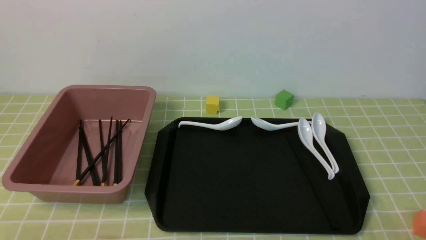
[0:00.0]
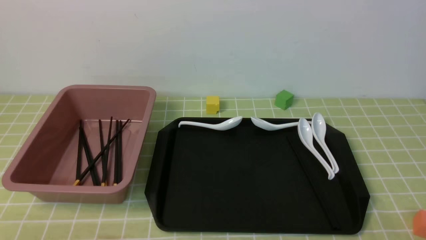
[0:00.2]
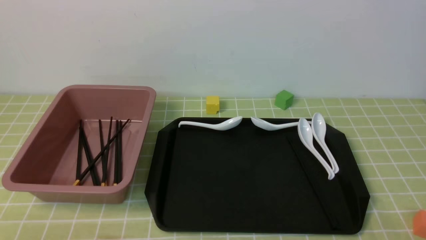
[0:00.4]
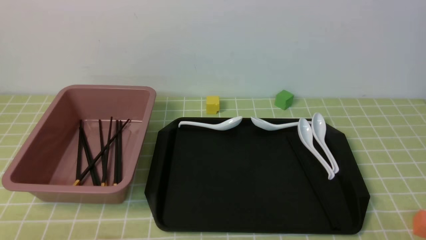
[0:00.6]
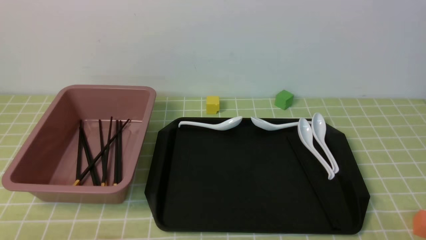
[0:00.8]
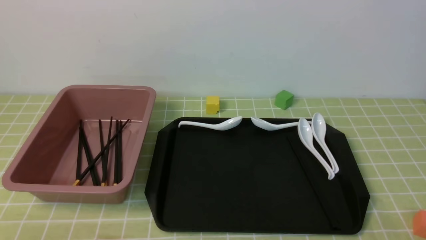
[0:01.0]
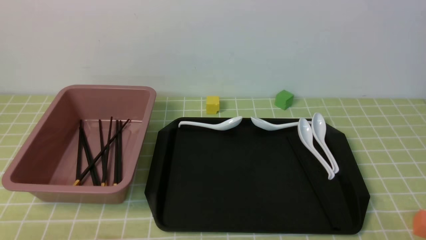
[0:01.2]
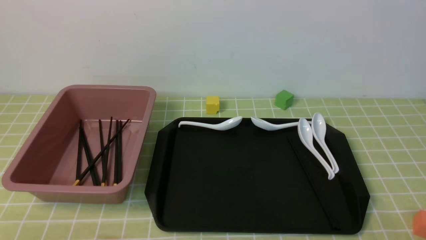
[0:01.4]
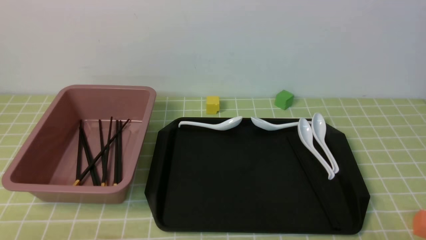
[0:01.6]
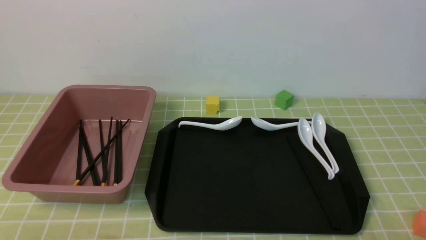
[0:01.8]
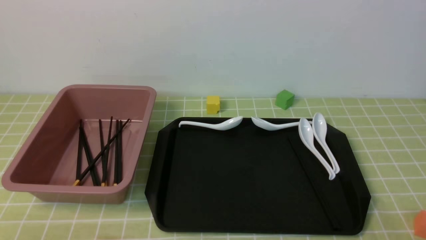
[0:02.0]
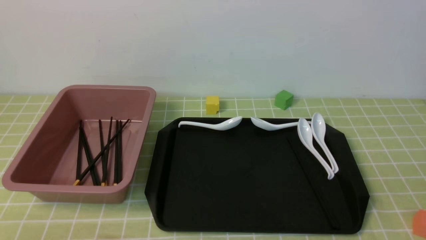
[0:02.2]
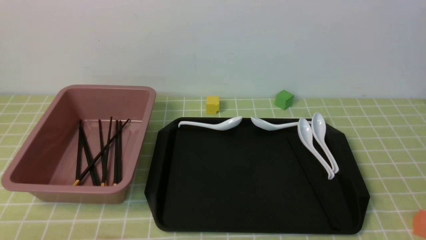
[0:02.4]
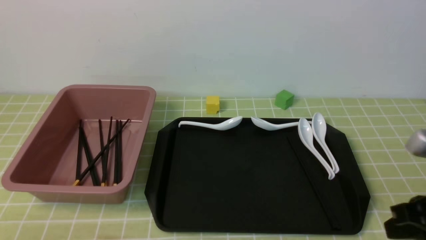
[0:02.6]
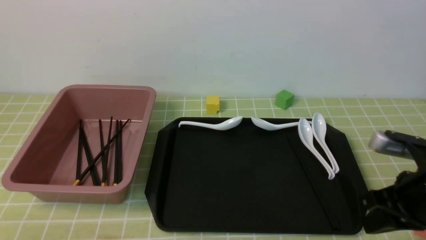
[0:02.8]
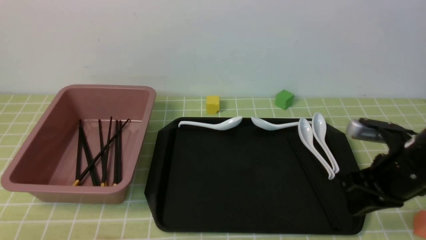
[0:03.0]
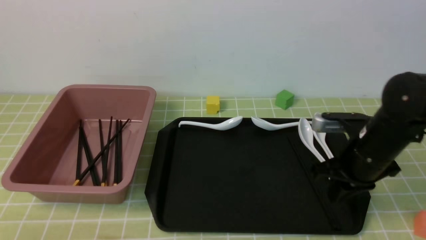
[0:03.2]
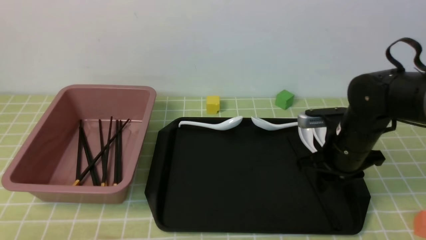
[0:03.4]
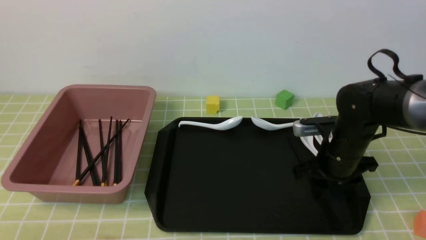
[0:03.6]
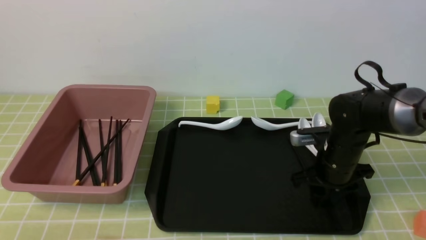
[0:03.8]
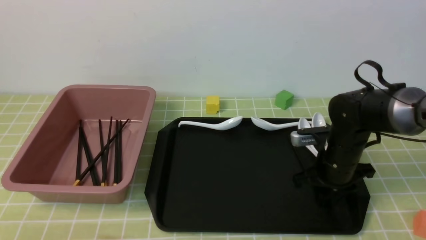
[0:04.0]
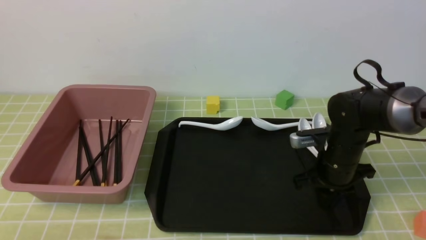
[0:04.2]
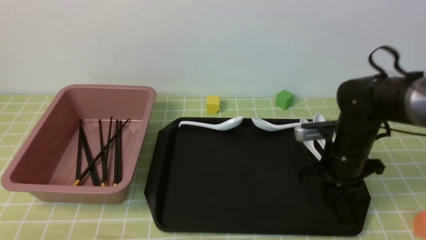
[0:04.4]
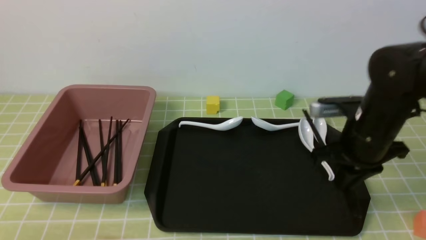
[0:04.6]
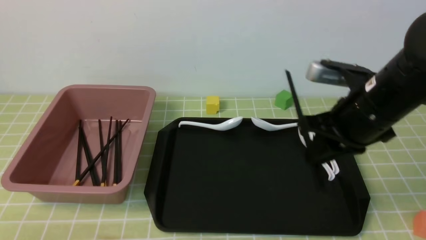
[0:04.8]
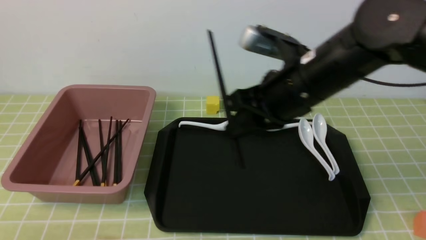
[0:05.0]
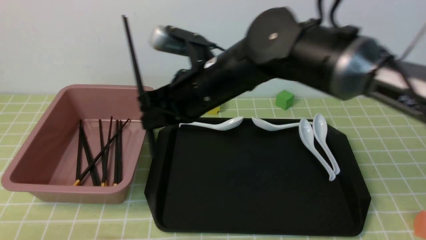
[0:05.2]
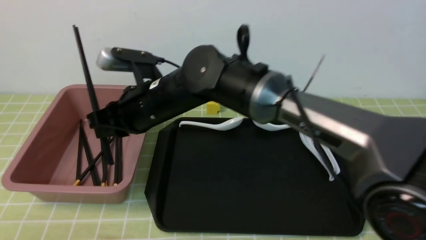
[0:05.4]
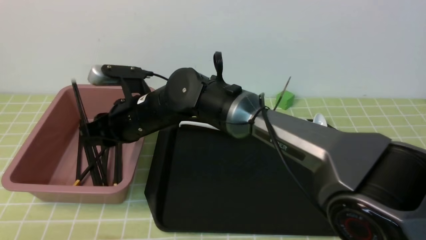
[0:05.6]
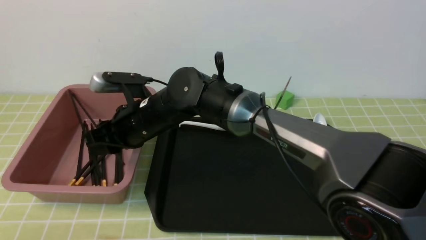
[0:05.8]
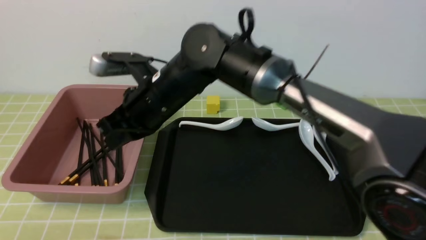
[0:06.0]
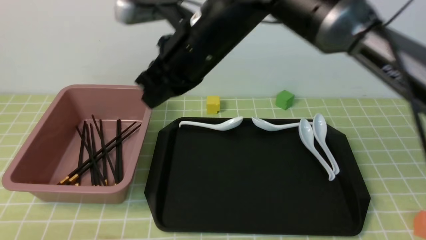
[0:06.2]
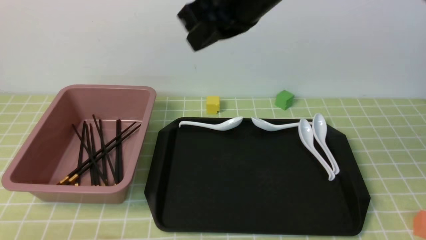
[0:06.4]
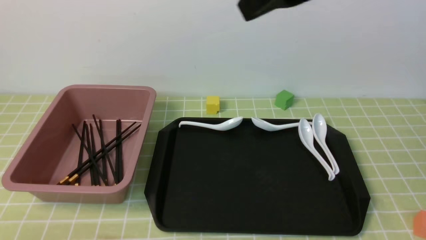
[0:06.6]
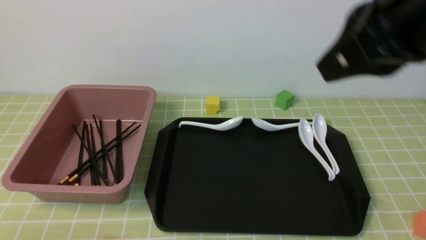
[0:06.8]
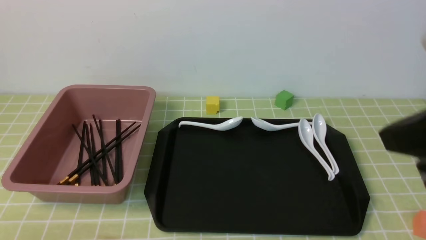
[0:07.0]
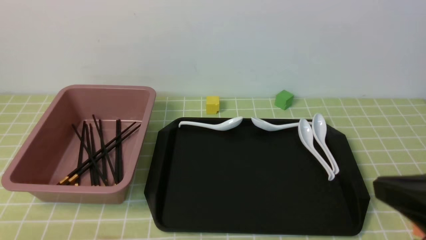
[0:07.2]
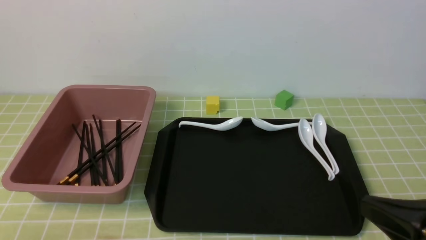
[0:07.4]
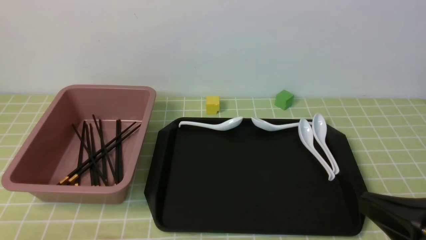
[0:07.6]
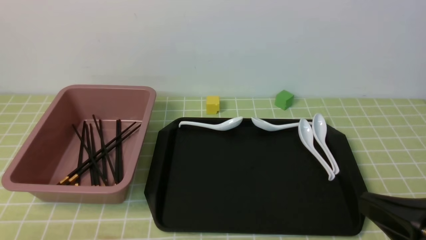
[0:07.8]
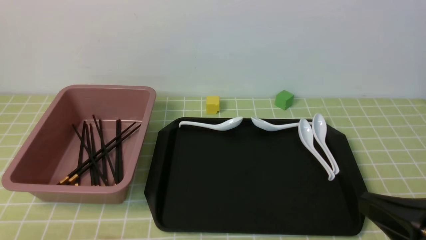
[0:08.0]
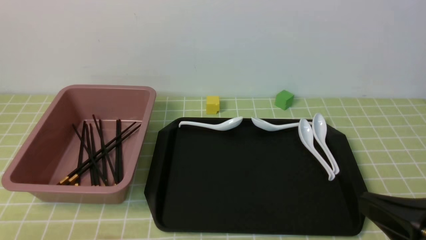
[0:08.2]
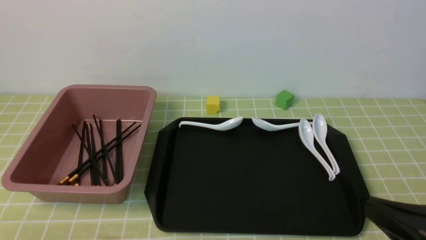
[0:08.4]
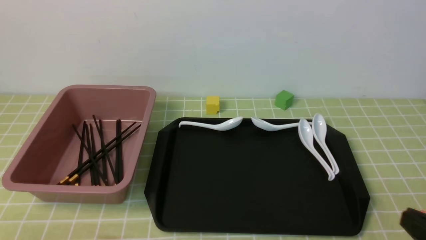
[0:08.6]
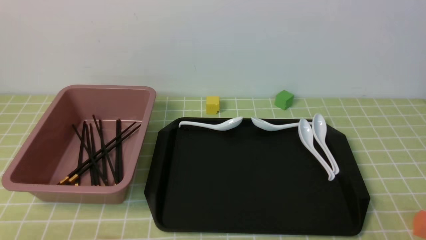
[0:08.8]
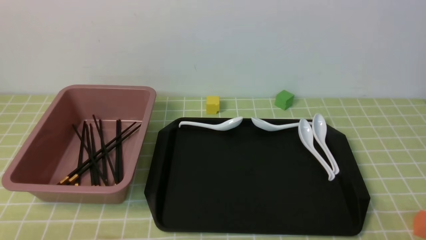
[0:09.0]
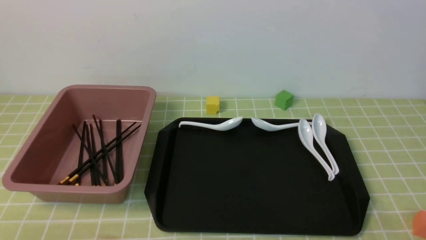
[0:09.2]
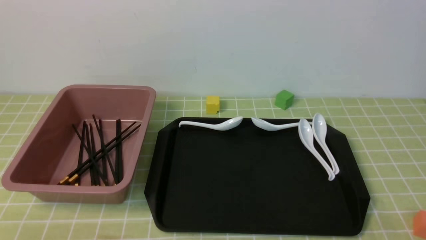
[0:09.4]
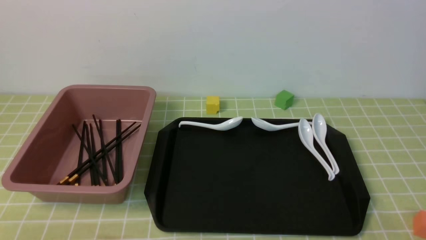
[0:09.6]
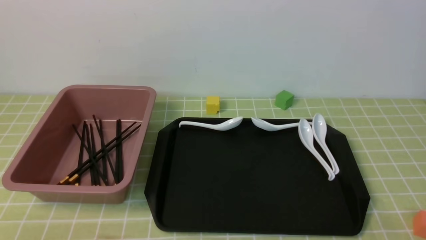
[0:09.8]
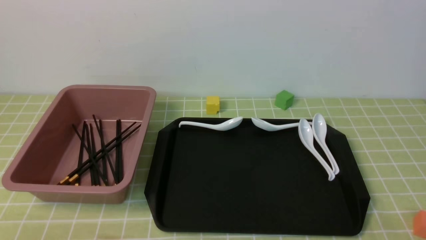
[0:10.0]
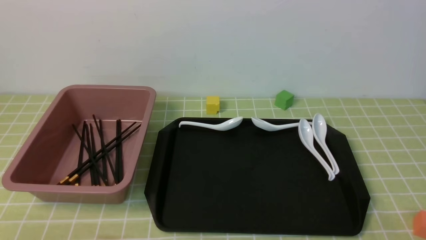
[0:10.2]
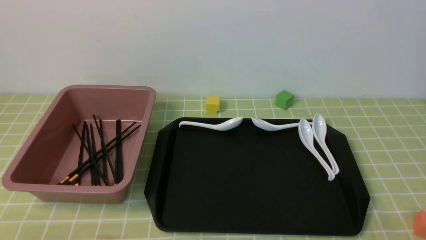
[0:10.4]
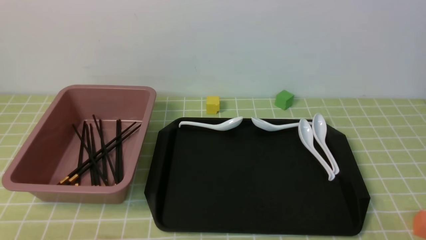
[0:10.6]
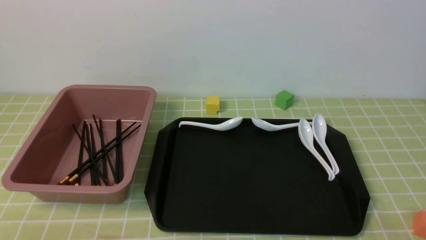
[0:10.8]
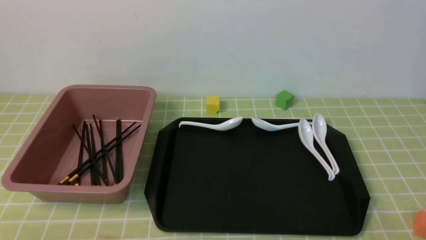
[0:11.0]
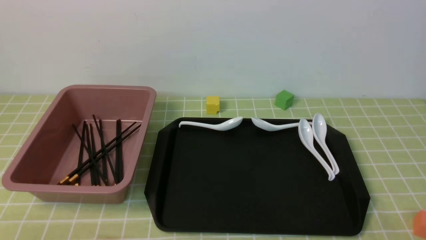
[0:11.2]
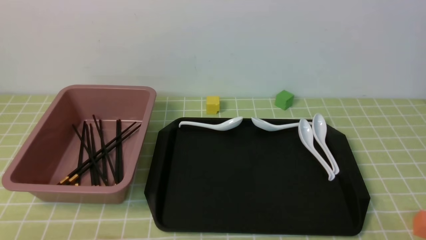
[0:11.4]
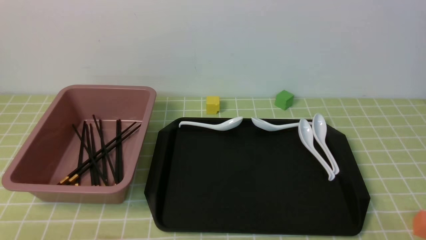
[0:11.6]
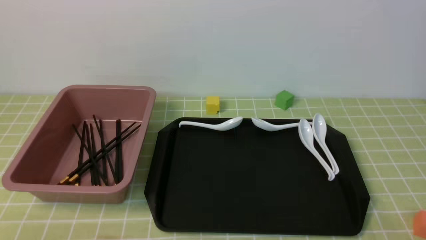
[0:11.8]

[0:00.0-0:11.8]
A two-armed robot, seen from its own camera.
Step, 0:00.0 to 0:04.6: use the right arm to grab a pair of chopsticks.
Step, 0:04.8 to 0:06.0: use the right arm to put the chopsticks into the lunch box.
0:01.4 to 0:03.0: The right gripper shifts about 20 cm forward, and closes.
0:03.0 to 0:04.4: The right gripper travels forward by about 5 cm, and opens and closes again.
0:04.4 to 0:06.0: The right gripper shifts approximately 30 cm to the left and upward, and opens, then closes once more.
0:06.0 to 0:07.4: The right gripper goes about 40 cm to the right and backward.
0:07.4 to 0:08.8: The right gripper is displaced downward and to the right by roughly 10 cm.
0:10.4 to 0:11.8: The two grippers keep their place.

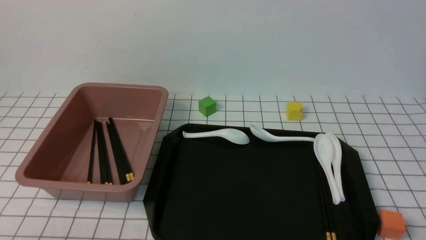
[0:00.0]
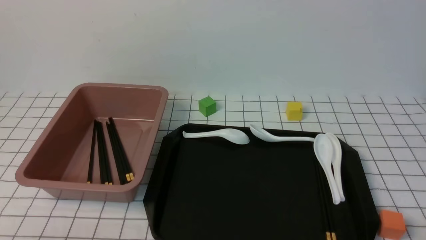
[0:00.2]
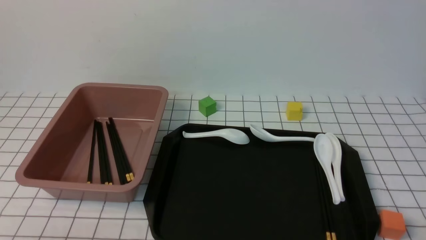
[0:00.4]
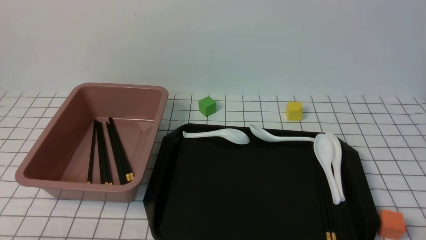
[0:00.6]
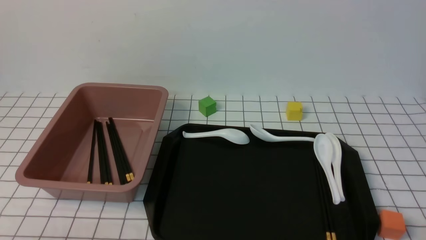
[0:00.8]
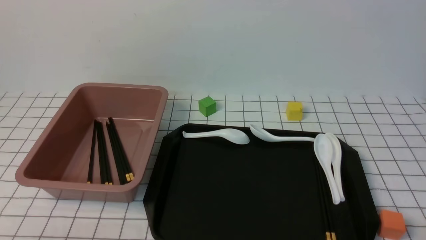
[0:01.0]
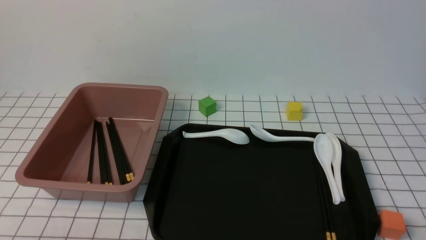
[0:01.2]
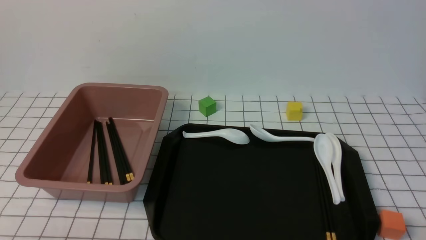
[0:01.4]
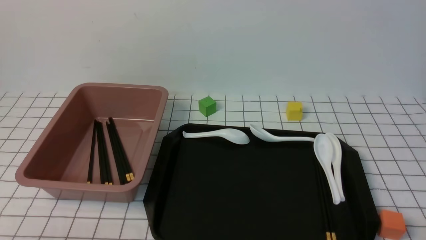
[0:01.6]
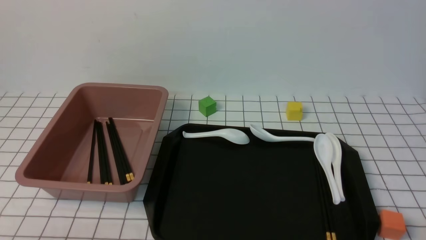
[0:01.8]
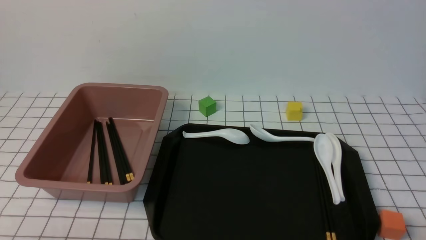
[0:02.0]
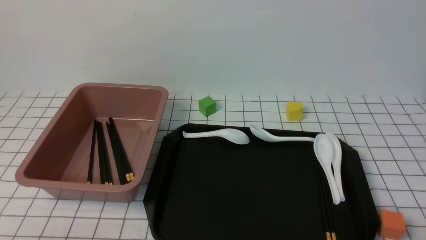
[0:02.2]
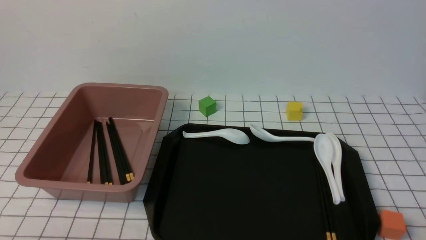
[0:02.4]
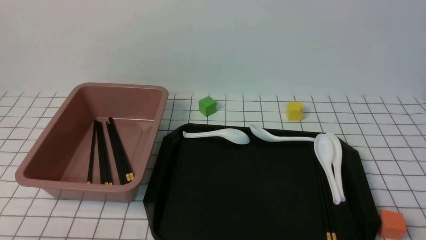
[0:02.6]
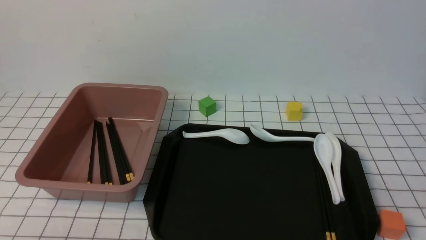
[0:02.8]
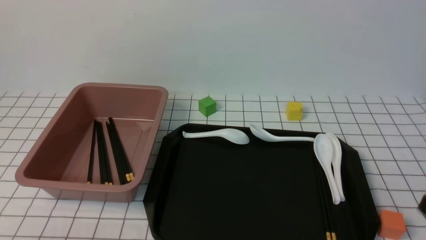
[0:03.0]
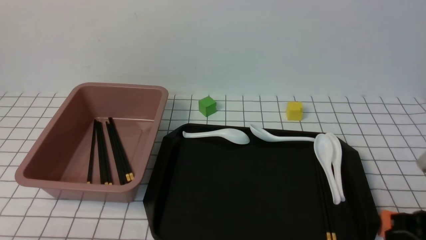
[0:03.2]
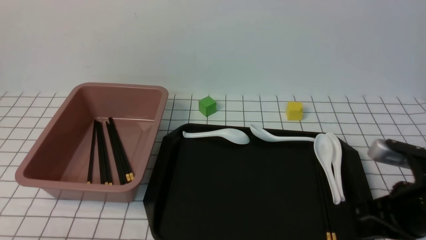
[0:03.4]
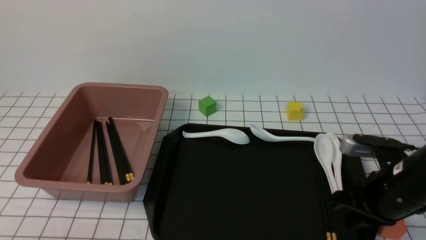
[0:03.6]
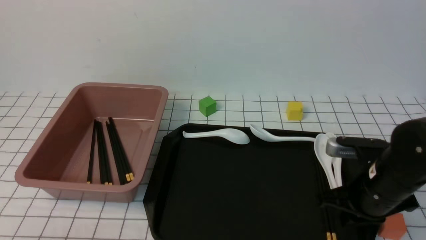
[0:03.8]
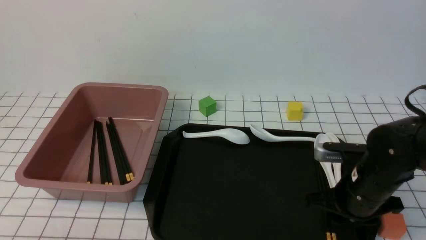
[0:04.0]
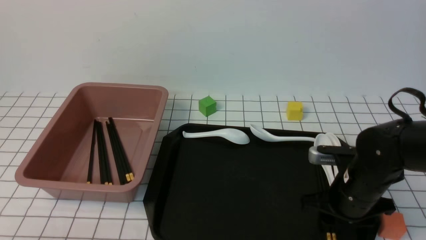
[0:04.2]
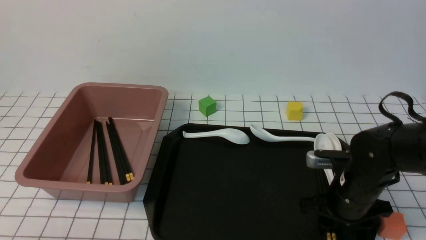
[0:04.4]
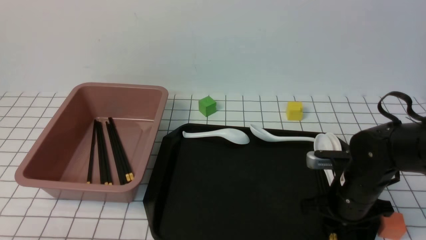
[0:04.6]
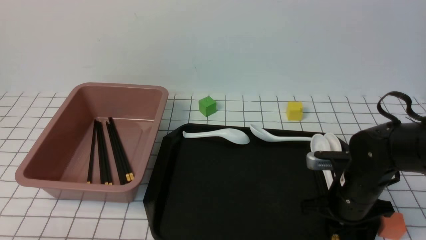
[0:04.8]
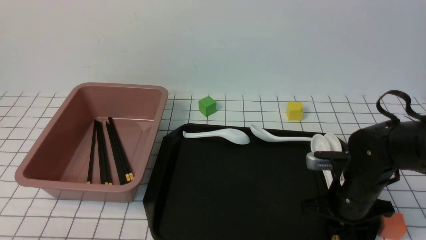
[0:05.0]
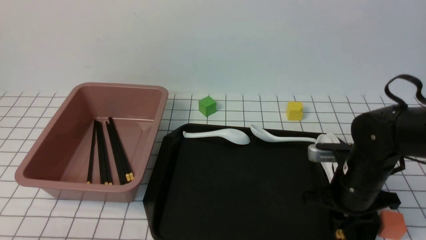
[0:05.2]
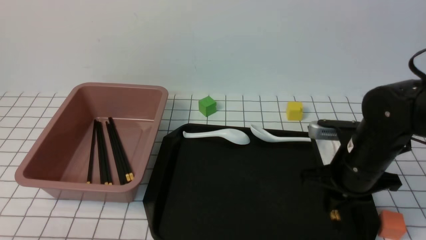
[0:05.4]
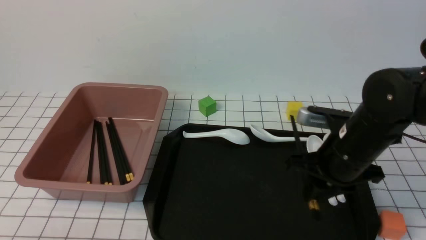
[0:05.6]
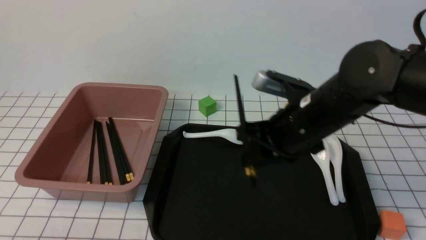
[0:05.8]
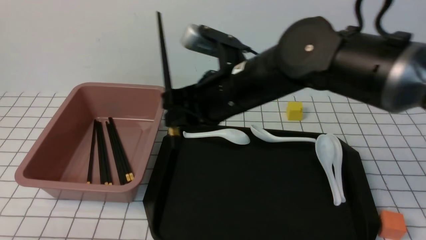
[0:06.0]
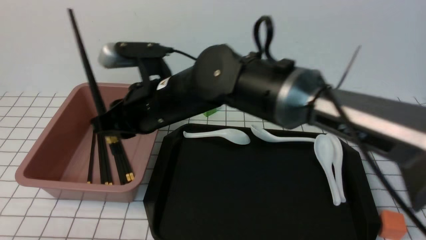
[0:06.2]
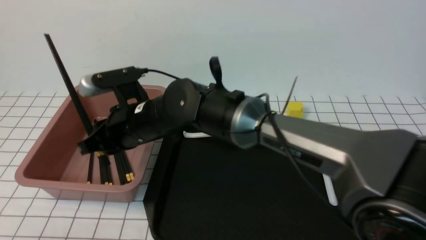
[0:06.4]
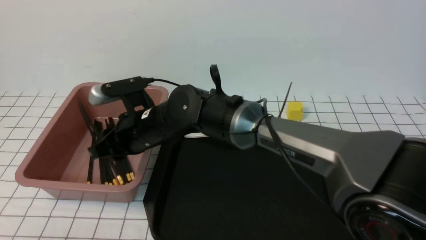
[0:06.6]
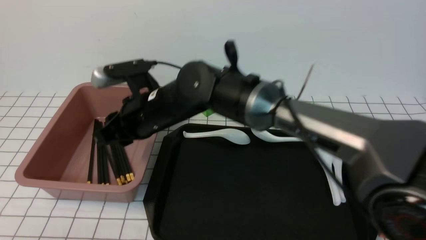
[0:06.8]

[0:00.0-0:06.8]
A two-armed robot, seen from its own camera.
Step, 0:00.0 to 0:05.4: use the right arm to grab a pair of chopsticks.
0:00.0 to 0:01.4: The two grippers keep their place.
0:02.8 to 0:04.0: The right gripper heads forward, downward and to the left, covering about 25 cm, and opens its fingers.
0:04.0 to 0:05.4: The grippers move only a little.
0:05.4 to 0:06.8: The right gripper travels to the left by some 25 cm.
